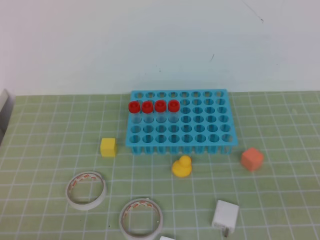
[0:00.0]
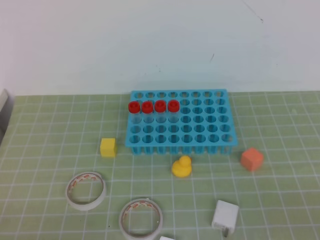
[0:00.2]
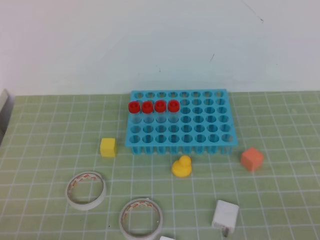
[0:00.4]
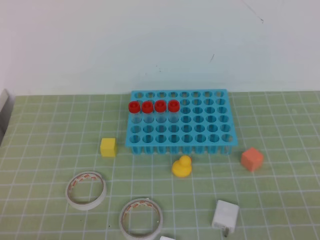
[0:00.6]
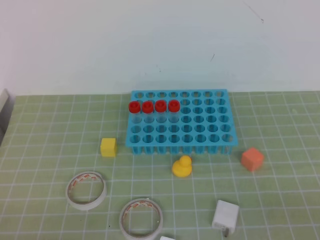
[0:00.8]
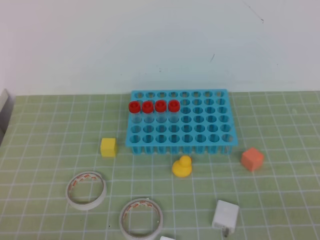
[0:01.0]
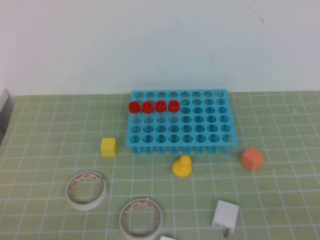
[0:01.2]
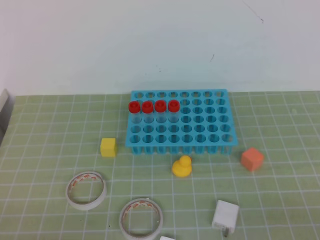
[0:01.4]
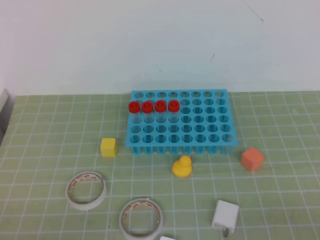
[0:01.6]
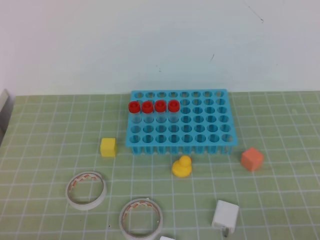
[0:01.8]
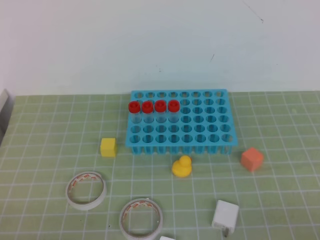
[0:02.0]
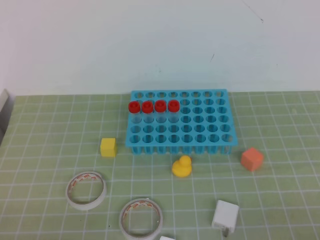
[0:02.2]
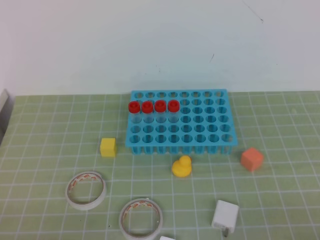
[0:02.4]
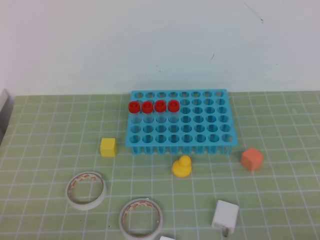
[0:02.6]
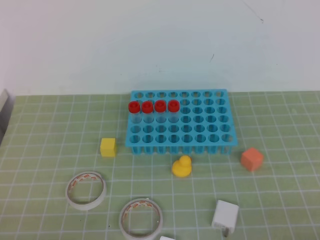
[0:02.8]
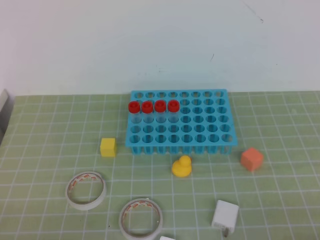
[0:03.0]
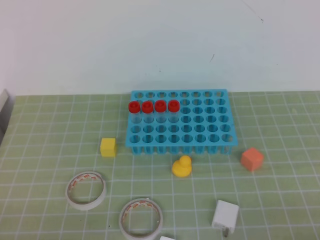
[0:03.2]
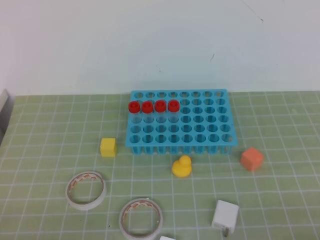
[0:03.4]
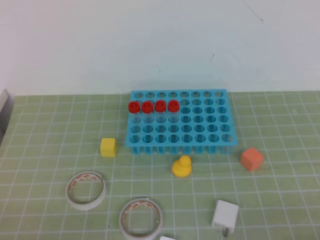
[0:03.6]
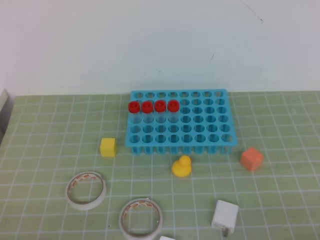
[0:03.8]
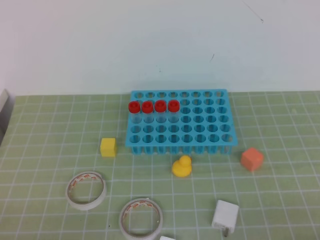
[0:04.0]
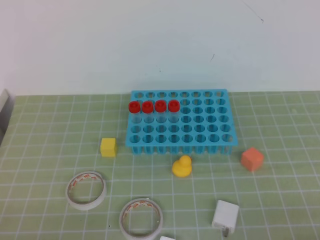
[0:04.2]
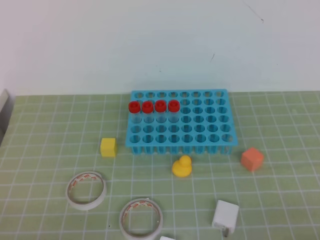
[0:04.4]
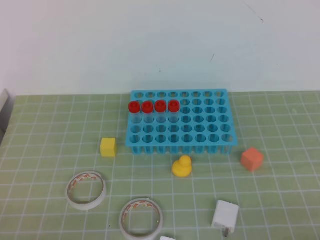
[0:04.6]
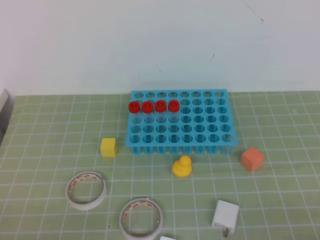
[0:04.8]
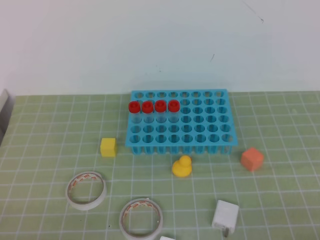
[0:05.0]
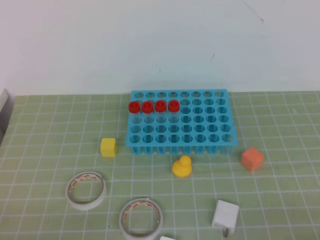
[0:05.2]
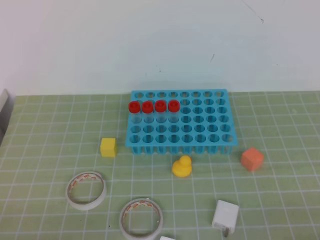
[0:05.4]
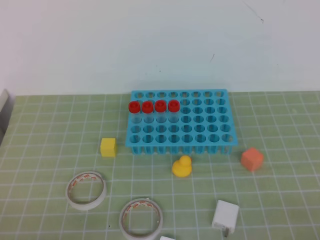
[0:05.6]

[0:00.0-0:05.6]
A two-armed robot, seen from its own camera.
0:04.2 to 0:05.6: Neither gripper changes place.
